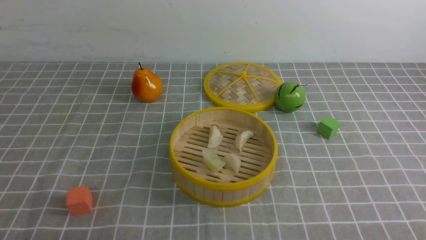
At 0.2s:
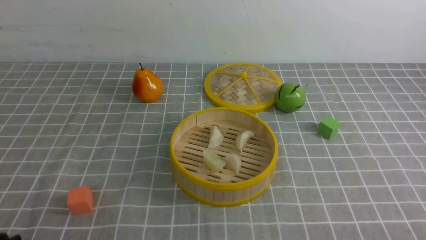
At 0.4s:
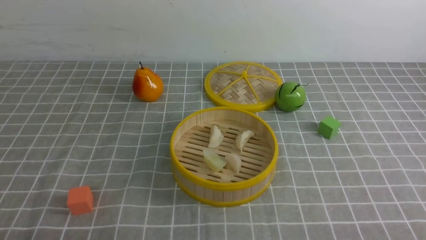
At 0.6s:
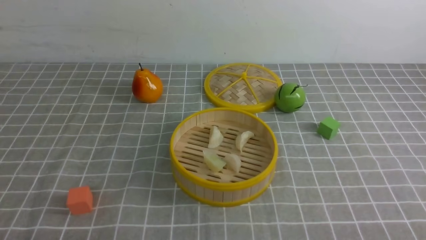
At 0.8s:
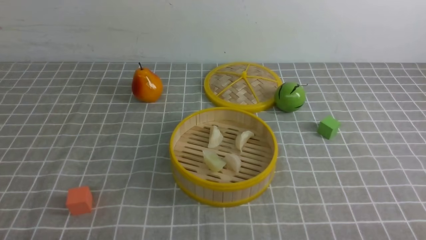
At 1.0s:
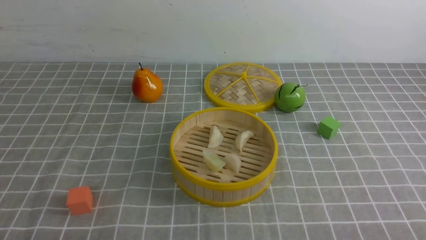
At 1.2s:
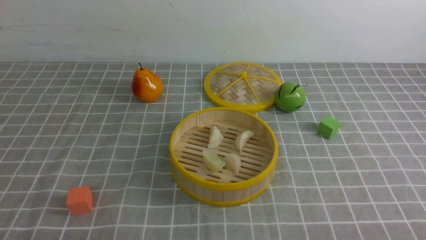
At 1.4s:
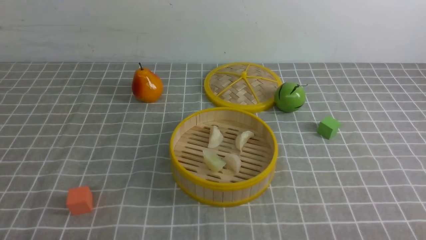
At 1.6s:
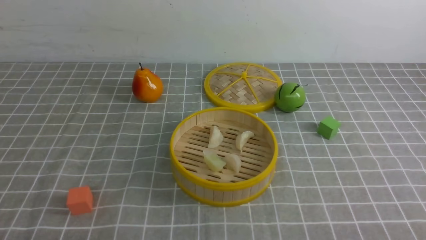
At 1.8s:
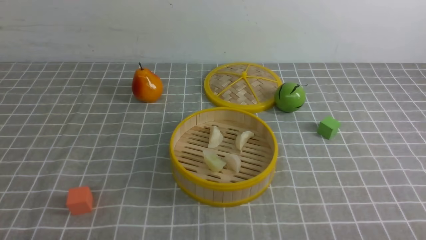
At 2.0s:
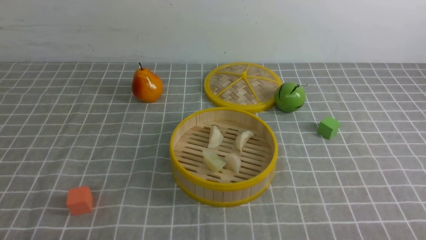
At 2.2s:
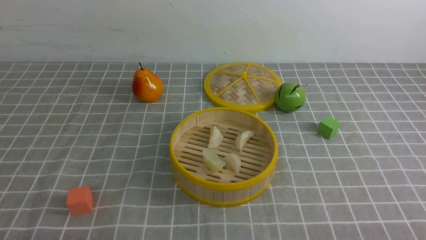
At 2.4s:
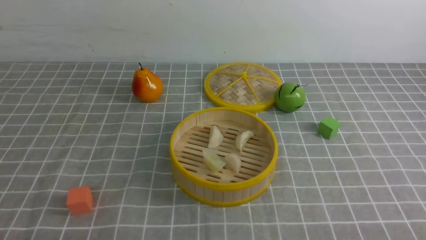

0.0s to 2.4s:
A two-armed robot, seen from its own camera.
Task of the whole recording: put the dumplings into the steamer on the table with the grey tablecloth.
1.2s to 2.4s: Both grippers stay about where they are.

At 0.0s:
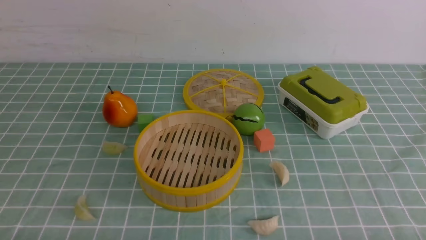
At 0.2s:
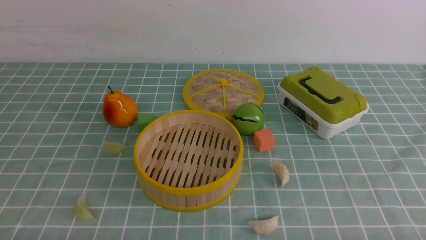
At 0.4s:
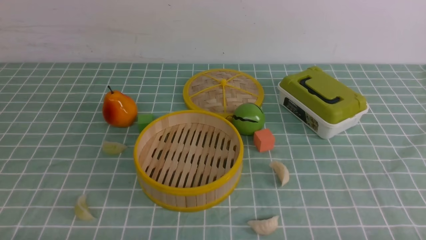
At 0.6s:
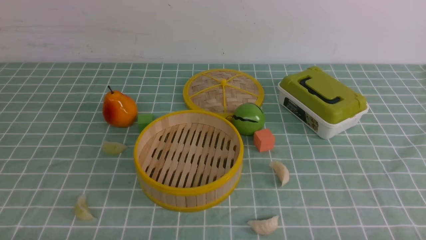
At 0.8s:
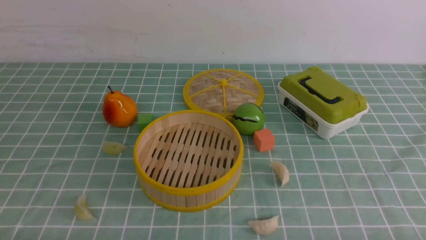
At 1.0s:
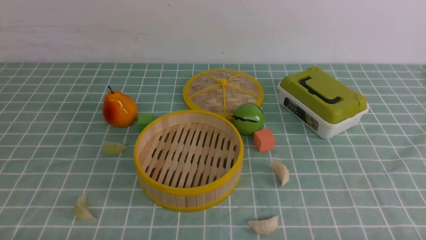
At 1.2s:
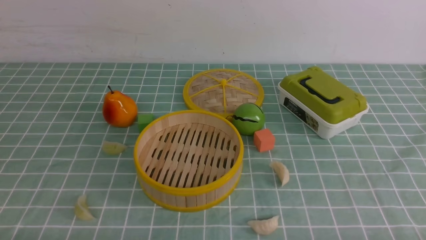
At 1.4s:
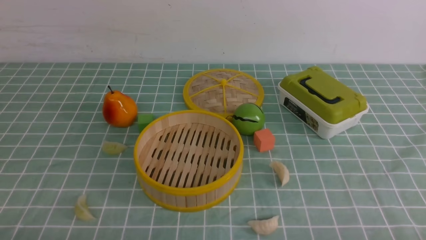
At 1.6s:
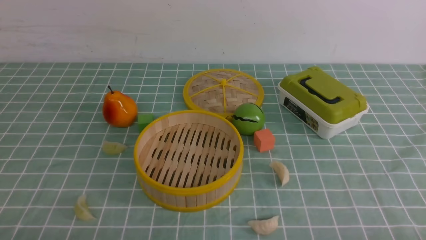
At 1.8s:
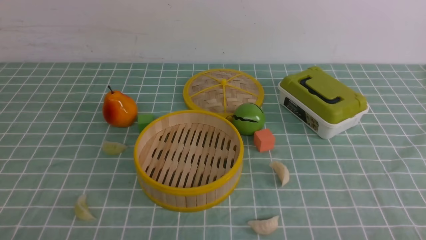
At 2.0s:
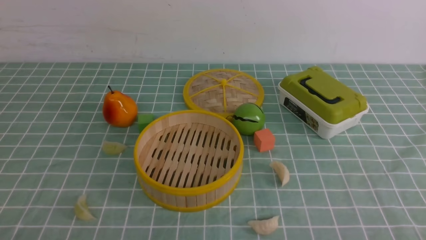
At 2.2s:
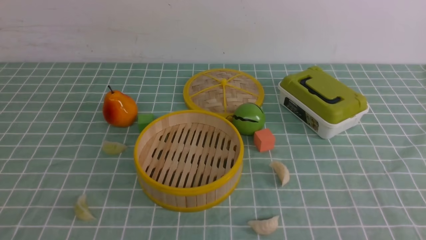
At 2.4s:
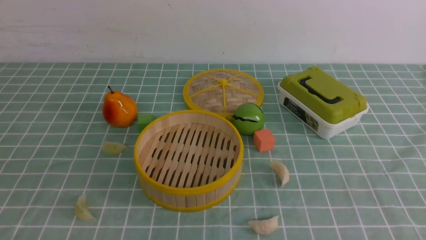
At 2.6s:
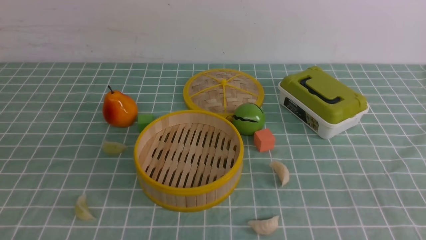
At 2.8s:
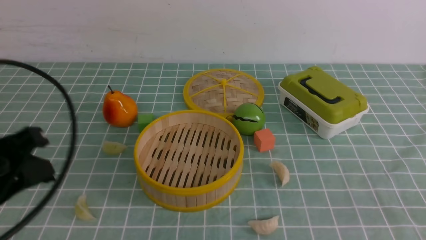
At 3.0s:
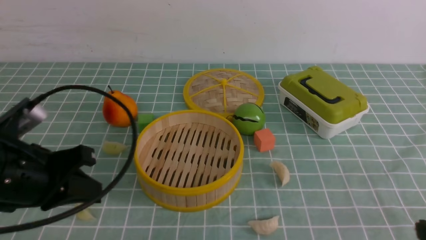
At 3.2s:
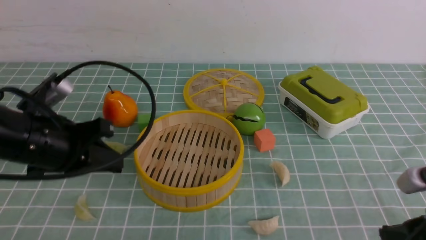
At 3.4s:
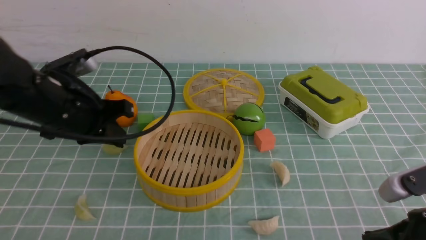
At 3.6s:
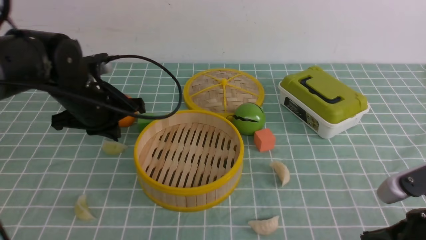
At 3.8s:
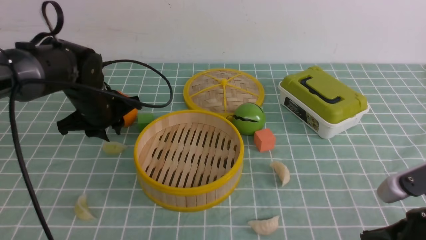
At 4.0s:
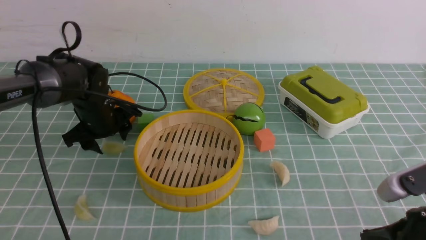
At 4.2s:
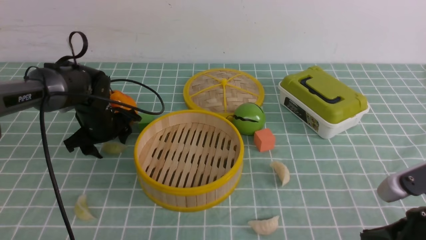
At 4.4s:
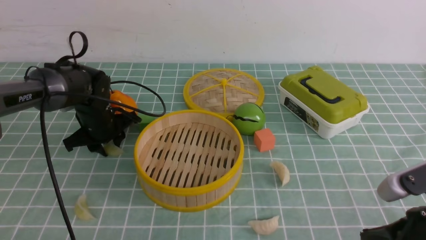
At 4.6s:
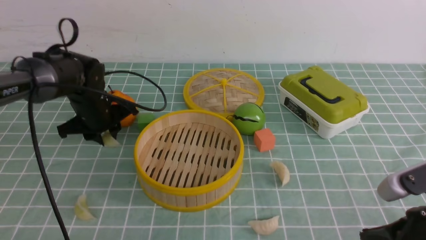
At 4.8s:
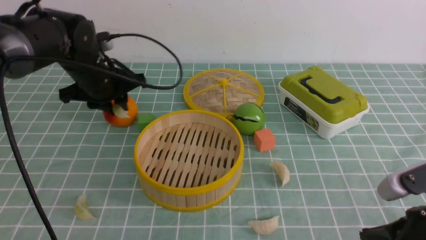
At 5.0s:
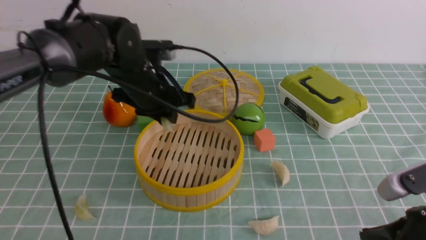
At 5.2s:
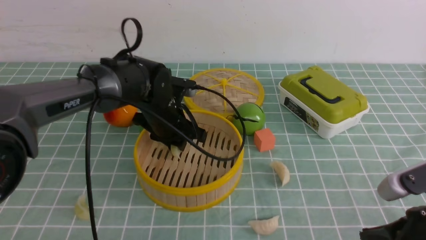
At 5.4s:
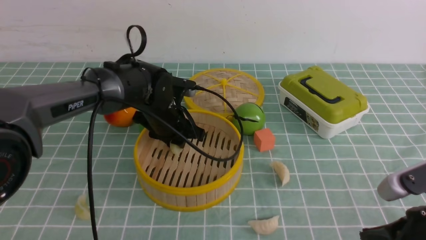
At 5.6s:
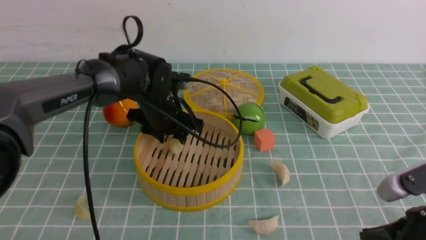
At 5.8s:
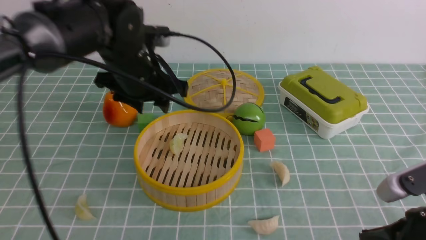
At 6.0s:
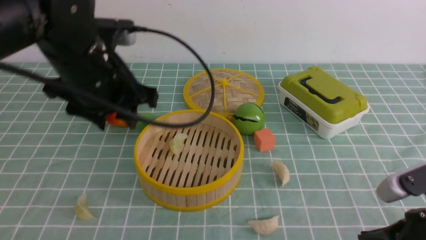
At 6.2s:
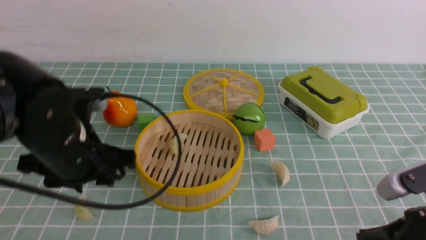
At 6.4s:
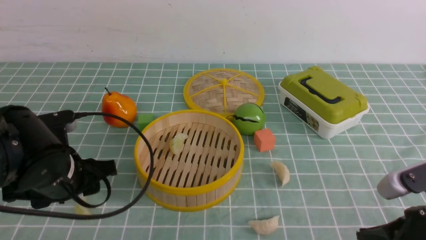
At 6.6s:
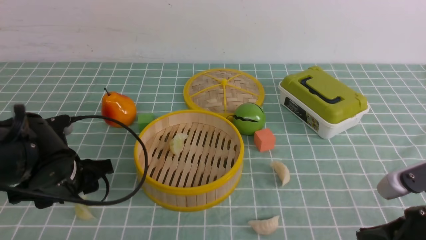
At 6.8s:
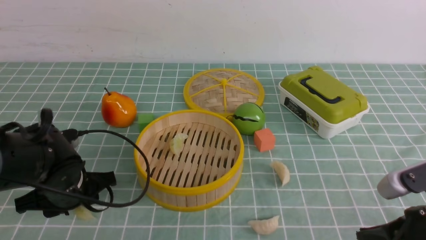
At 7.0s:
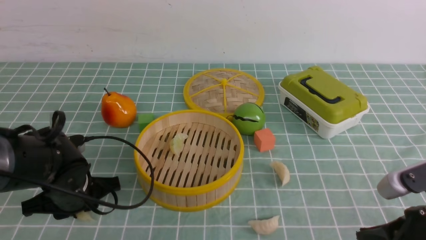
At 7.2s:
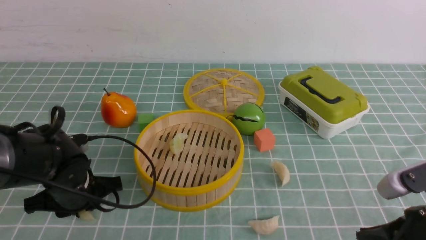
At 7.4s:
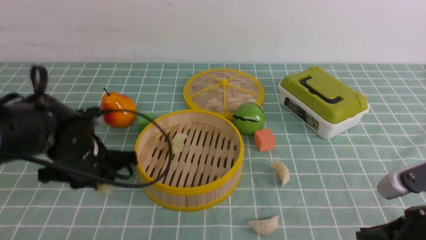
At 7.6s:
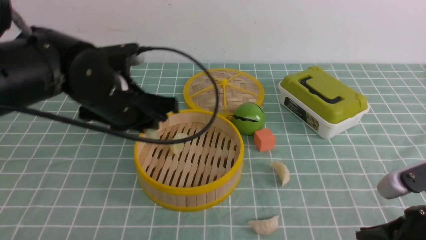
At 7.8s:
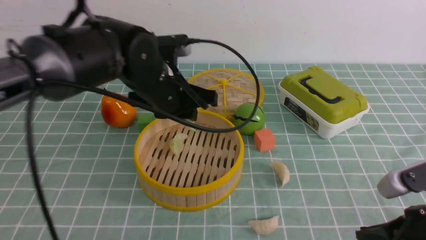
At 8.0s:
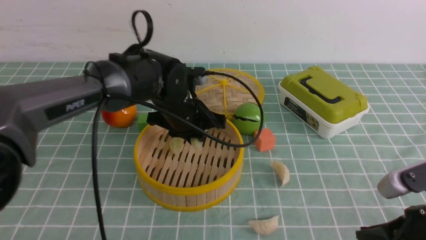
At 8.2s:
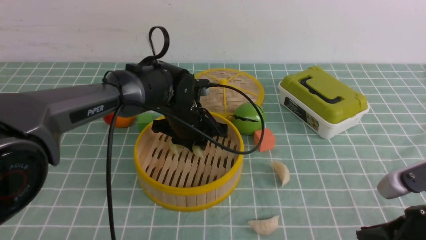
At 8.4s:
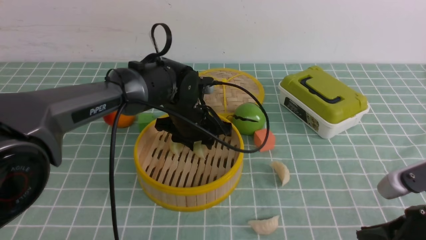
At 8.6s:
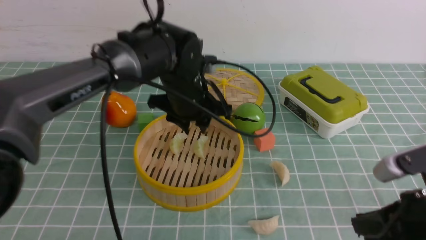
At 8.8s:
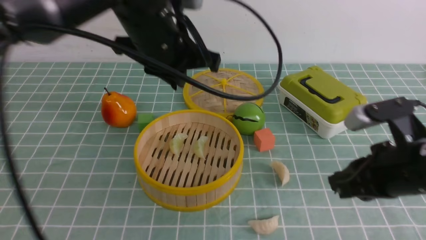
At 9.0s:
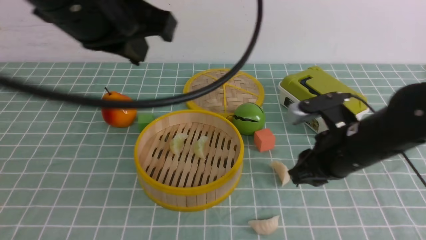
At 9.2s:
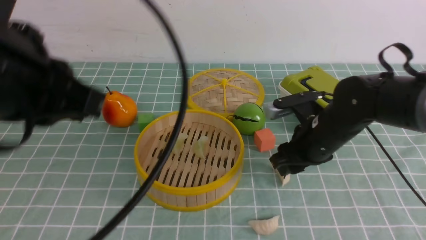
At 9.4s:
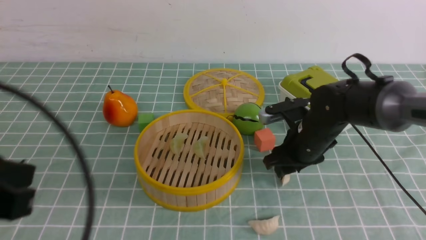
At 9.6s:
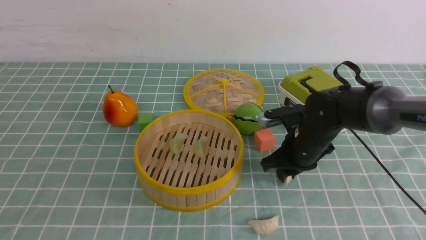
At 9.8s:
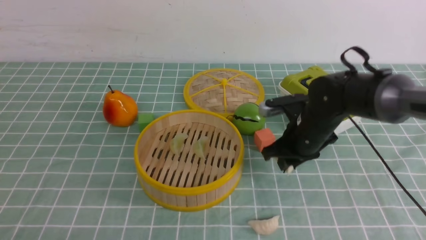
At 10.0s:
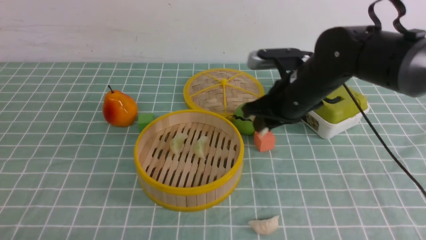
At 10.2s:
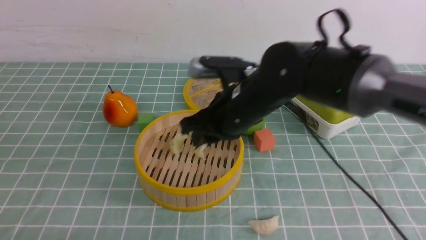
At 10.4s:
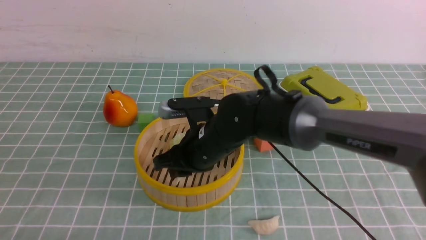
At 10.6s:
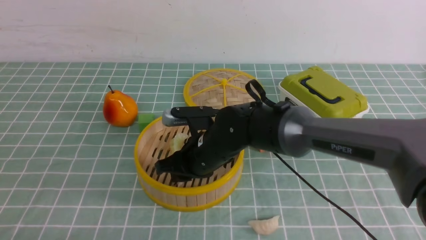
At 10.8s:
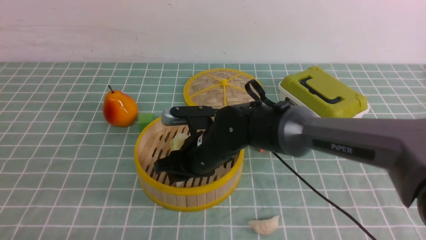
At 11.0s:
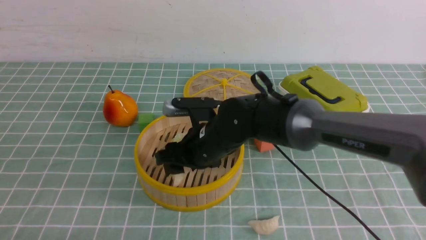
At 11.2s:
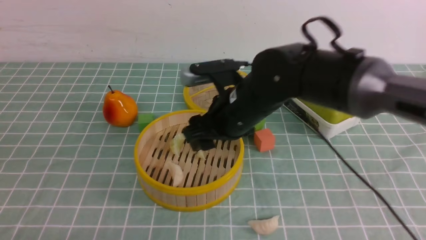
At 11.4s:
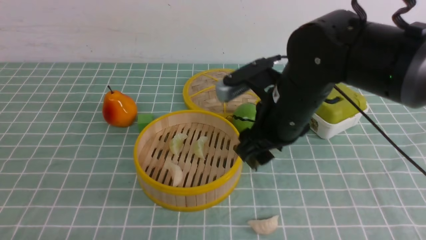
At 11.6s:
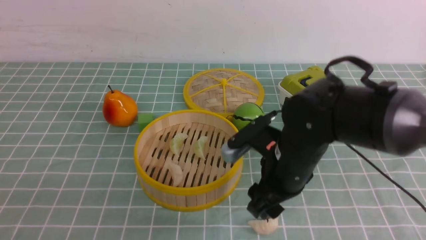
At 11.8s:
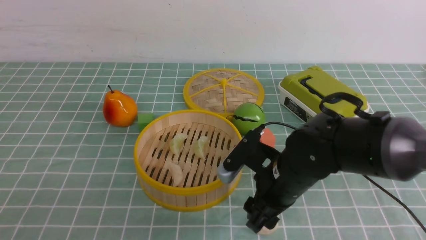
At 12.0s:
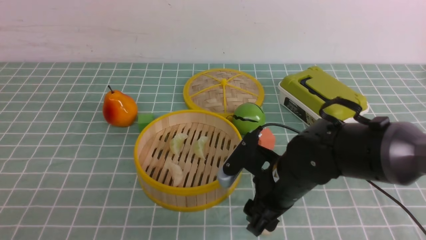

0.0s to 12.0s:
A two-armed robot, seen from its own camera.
Task of the whole recording: put the dumplings into the steamer on the table with the blue tablecloth.
Step, 0.0s to 4.6s: use the left arm to grab a dumpling.
Step, 5.0s to 5.6s: use the left arm to put the dumpling into the steamer.
Step, 6.0s to 7.6s: use the left arm to grab a dumpling.
Step, 7.8s to 8.6s: use the left arm to put the dumpling into the steamer.
Step, 8.8s to 9.8s: use the right arm to grab a dumpling.
Step, 10.0s to 11.0s: use the right arm to put the dumpling into the steamer.
1.6s to 3.0s: The left gripper is displaced forward by some 15 cm.
3.0s to 4.4s: The left gripper heads forward and downward, covering roughly 25 cm, and opens up.
4.4s to 6.0s: The left gripper swings up and down, approximately 15 cm each way, with 2 reversals.
6.0s to 7.6s: The left gripper reaches approximately 15 cm downward, then returns, and closes its fingers.
7.6s to 9.0s: The left gripper heads upward and backward, covering some 20 cm, and closes. Meanwhile the right gripper moves forward and to the left, approximately 15 cm, and opens.
9.0s to 10.4s: The left gripper is displaced backward, downward and to the left by some 30 cm; the right gripper shifts roughly 20 cm to the left.
10.4s to 12.0s: The right gripper heads to the right and backward, covering about 10 cm, and opens.

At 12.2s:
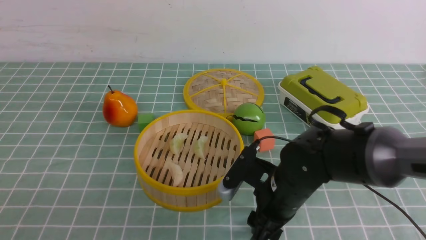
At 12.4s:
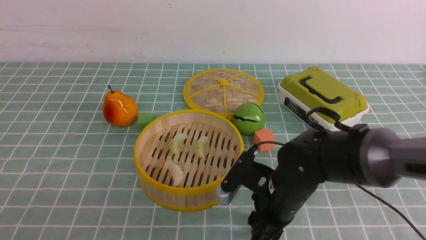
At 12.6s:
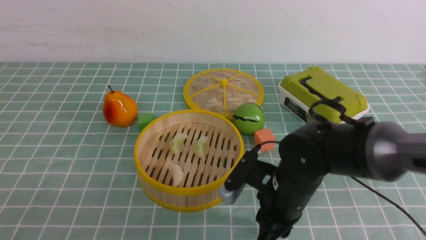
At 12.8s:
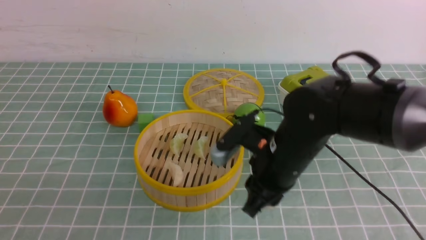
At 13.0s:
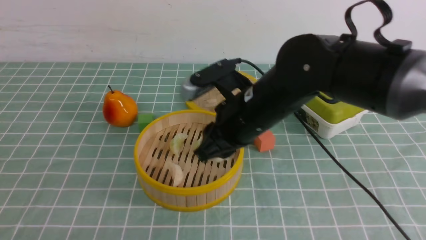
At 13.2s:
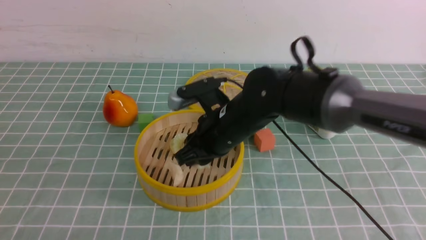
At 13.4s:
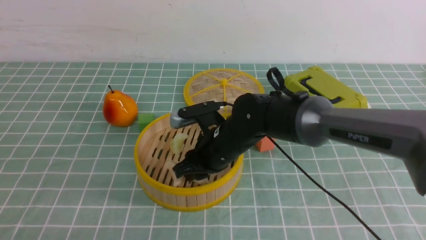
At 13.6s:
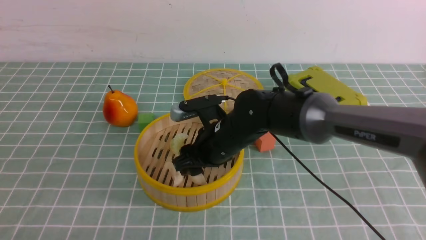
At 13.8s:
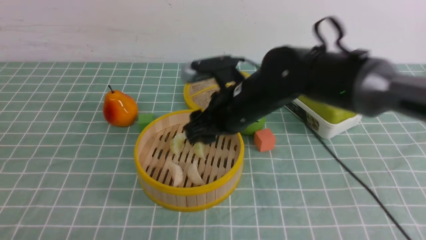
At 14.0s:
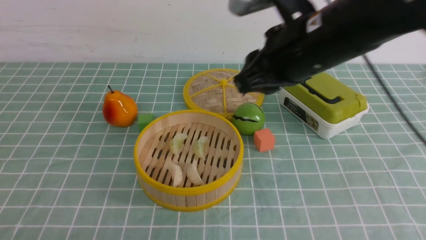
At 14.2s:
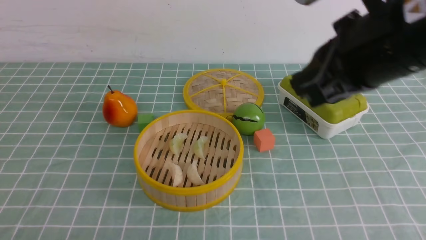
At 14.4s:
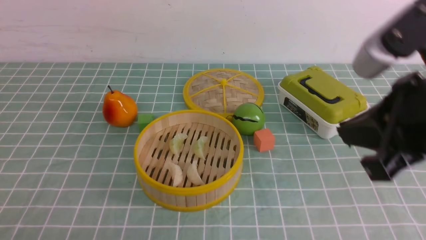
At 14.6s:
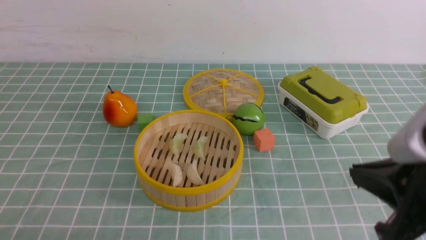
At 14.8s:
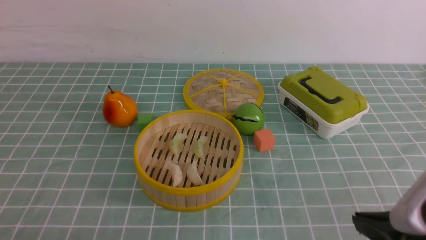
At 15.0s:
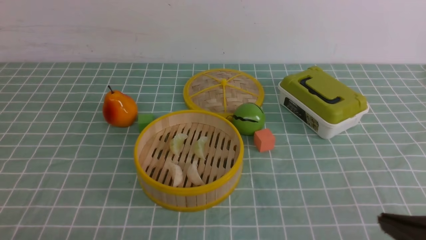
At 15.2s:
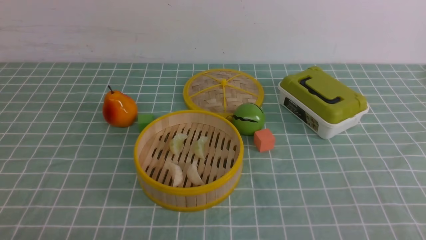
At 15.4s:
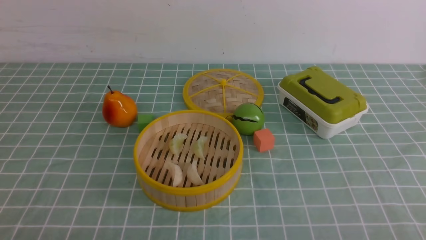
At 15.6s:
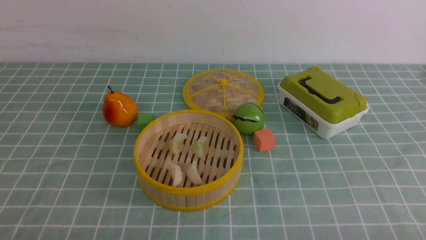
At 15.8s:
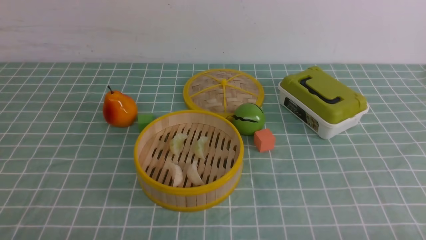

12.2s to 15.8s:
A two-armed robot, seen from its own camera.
Task of the whole recording: put the dumplings into the steamer on the table with the blue tablecloth.
Step, 13.2s to 14.0s: use the right arm to put the dumpling into the steamer.
12.2s to 14.0s: The right gripper moves up and down over roughly 20 cm, changing direction 2 times, and closes.
14.0s to 15.8s: The right gripper moves backward, to the right and downward, approximately 35 cm.
